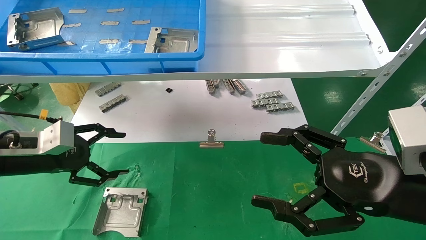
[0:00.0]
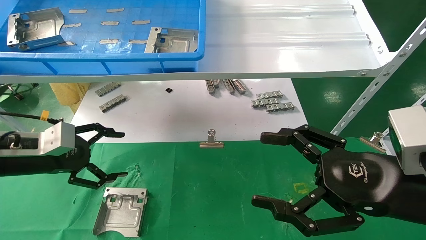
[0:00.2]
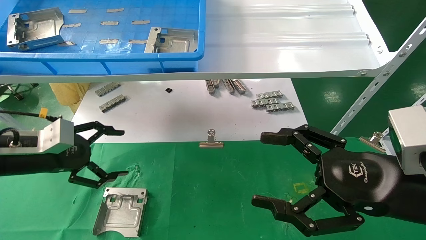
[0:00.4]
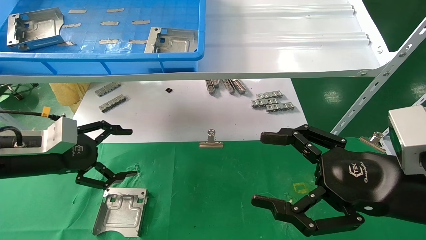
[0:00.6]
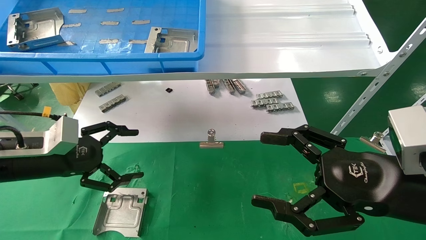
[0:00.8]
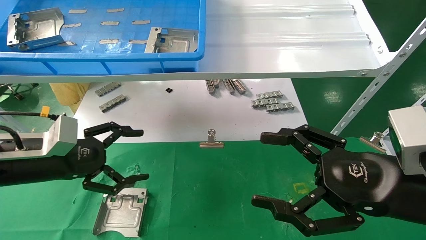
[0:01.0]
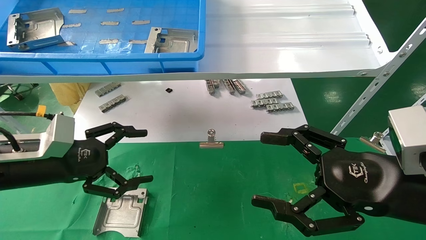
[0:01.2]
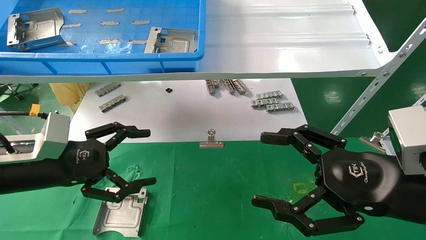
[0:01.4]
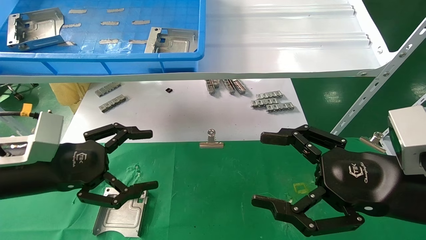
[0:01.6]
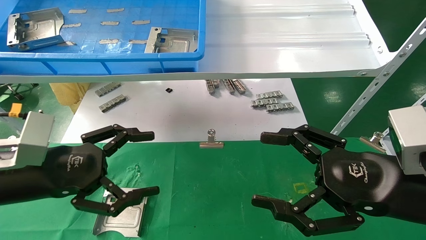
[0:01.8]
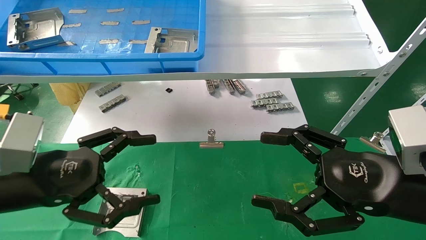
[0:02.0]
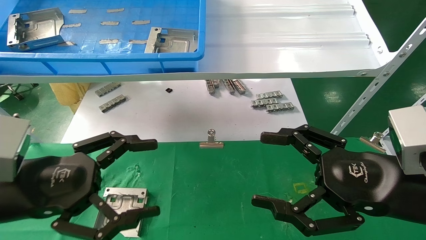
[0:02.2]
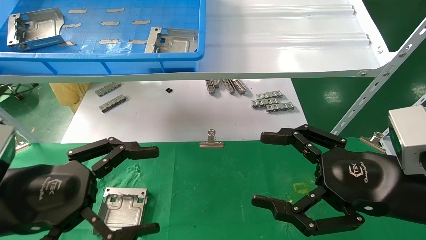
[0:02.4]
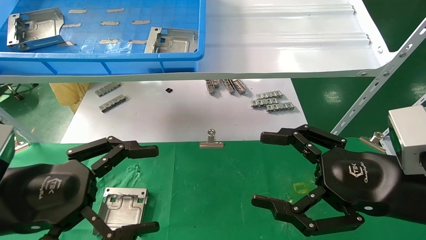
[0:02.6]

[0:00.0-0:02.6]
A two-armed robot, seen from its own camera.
Task of the whole recording: use the mechanical arm to pick up the parts and place them on the table.
0:00.0 to 0:01.2: The left gripper heads to the right, covering about 5 cm.
0:01.2 to 0:02.6: The left gripper travels backward by approximately 10 cm.

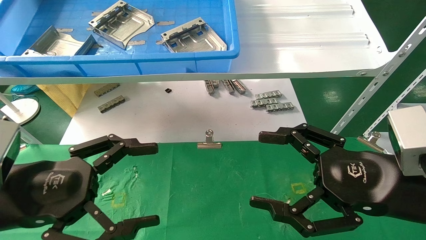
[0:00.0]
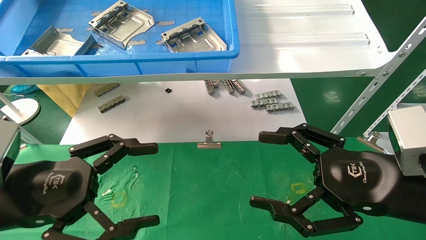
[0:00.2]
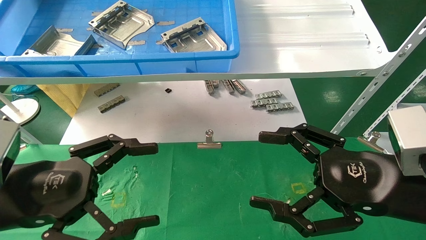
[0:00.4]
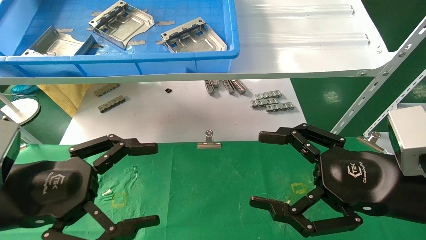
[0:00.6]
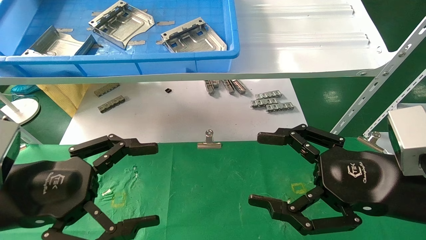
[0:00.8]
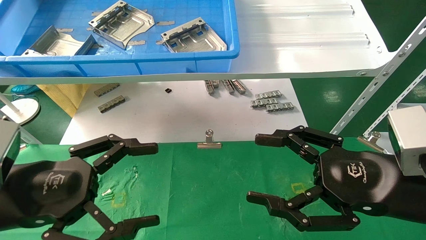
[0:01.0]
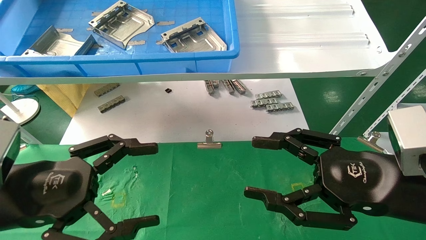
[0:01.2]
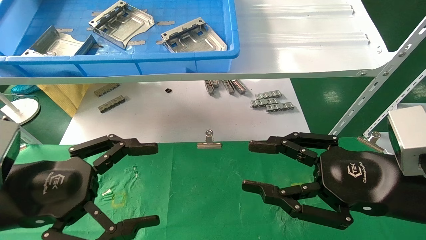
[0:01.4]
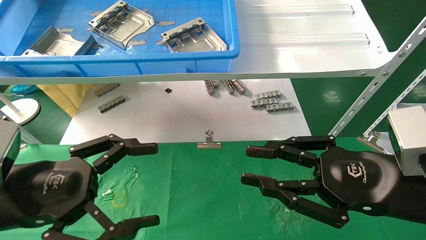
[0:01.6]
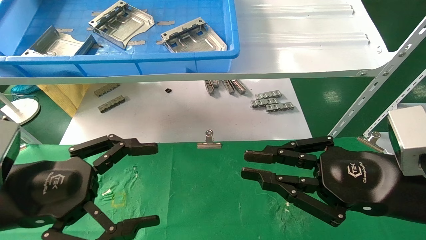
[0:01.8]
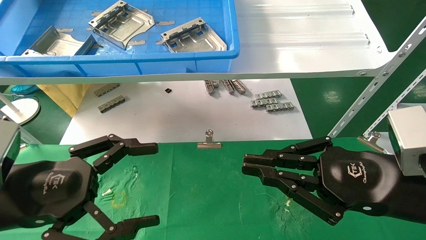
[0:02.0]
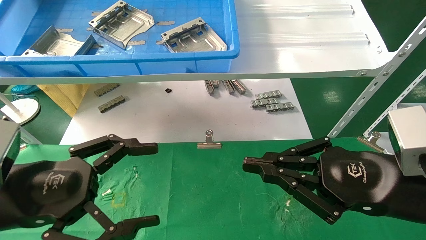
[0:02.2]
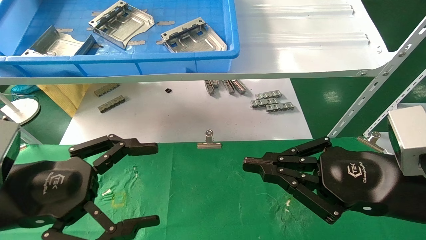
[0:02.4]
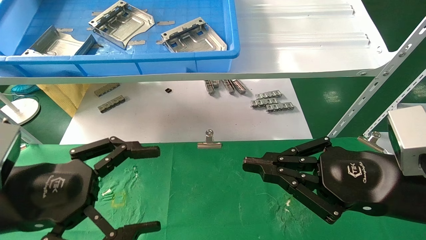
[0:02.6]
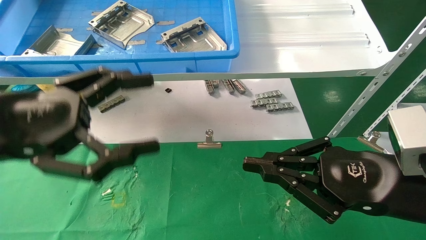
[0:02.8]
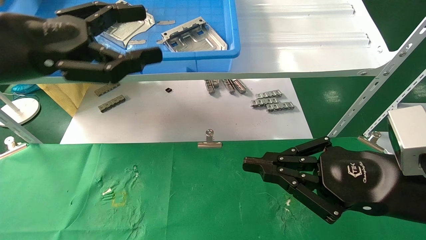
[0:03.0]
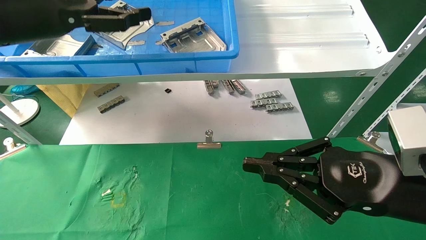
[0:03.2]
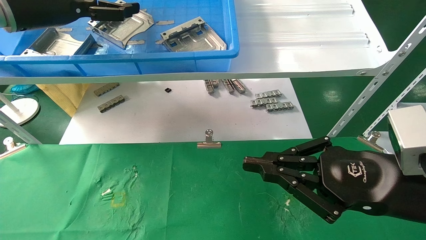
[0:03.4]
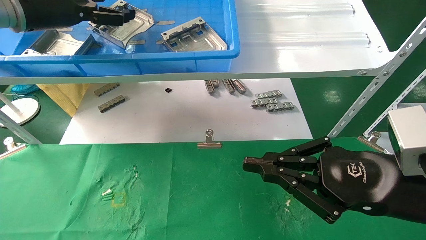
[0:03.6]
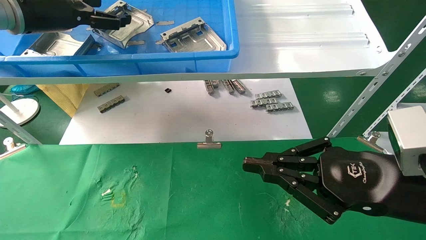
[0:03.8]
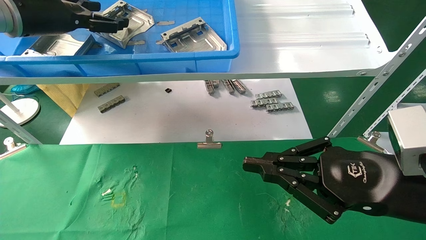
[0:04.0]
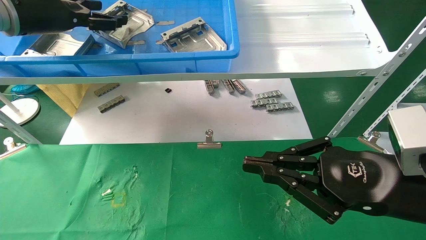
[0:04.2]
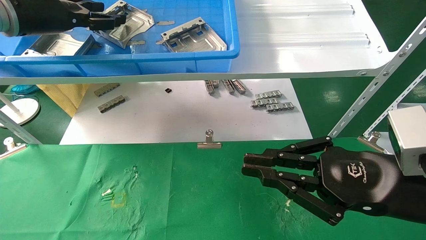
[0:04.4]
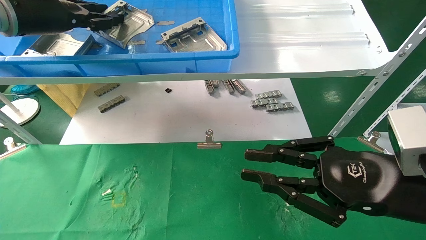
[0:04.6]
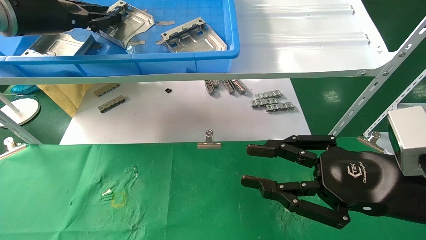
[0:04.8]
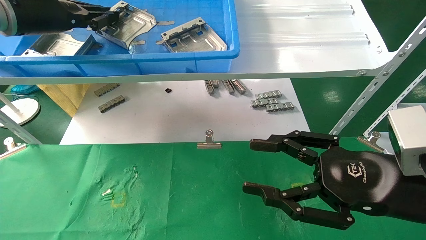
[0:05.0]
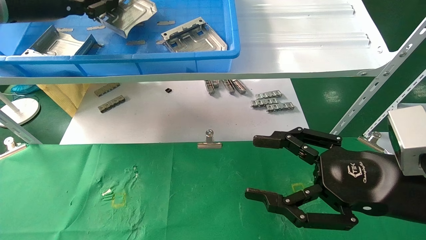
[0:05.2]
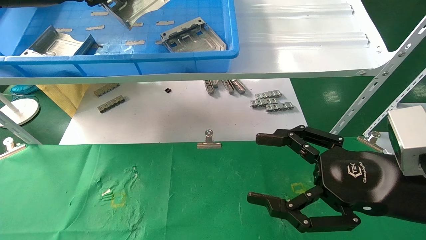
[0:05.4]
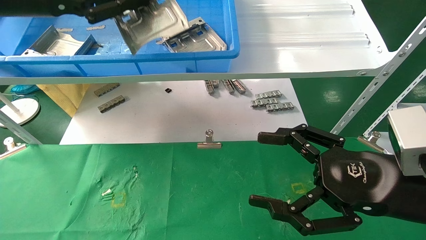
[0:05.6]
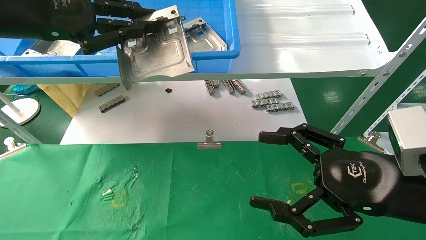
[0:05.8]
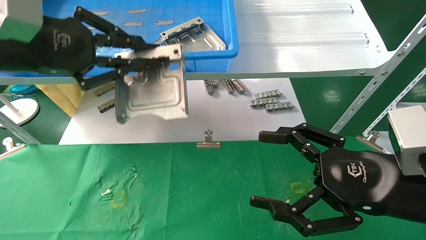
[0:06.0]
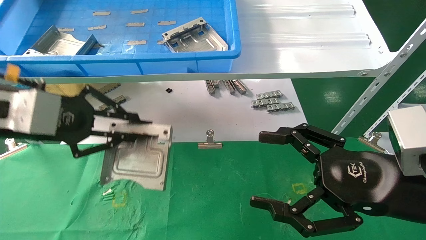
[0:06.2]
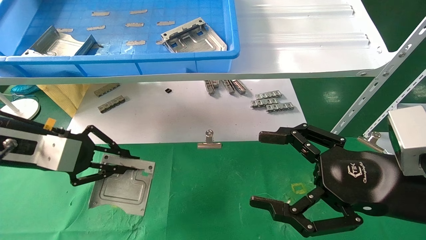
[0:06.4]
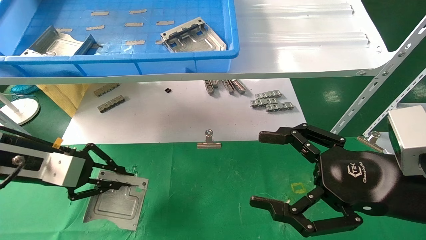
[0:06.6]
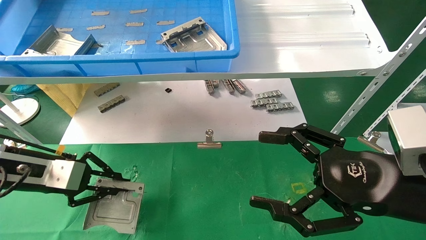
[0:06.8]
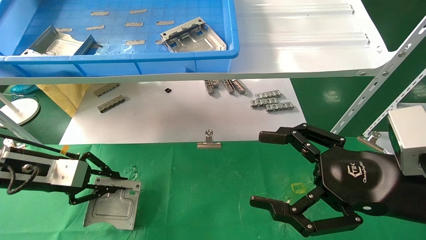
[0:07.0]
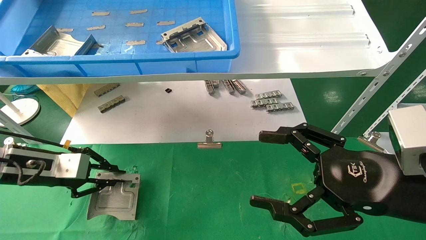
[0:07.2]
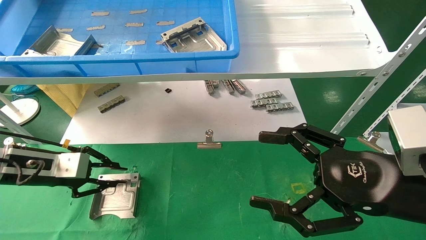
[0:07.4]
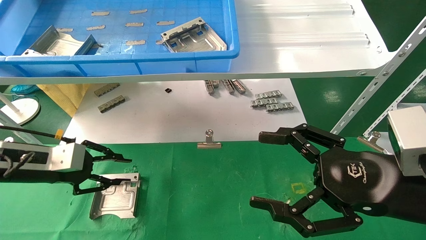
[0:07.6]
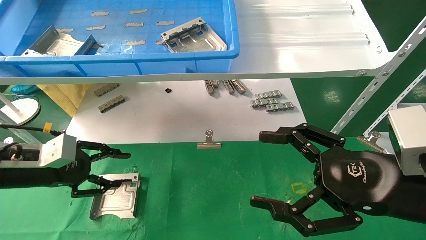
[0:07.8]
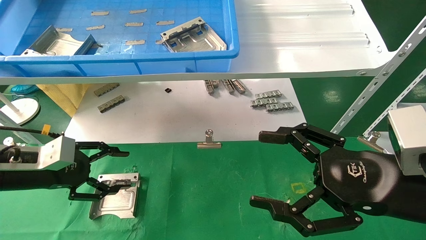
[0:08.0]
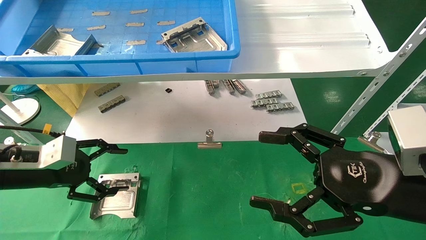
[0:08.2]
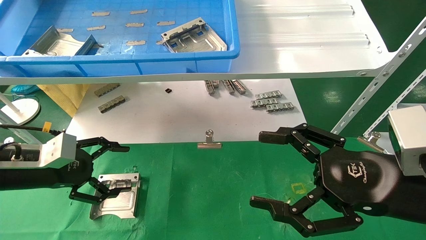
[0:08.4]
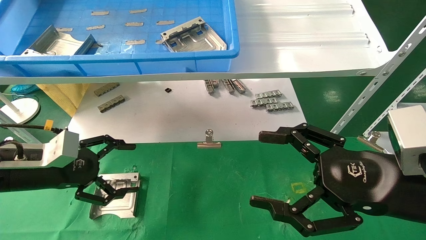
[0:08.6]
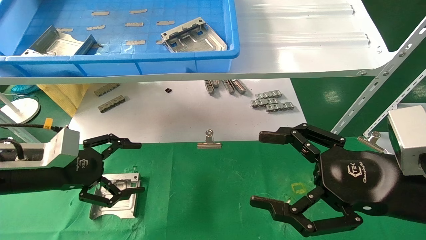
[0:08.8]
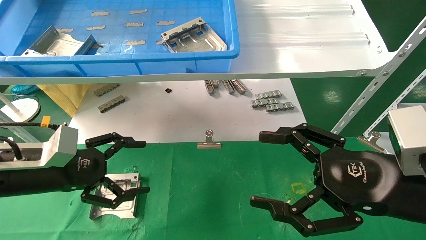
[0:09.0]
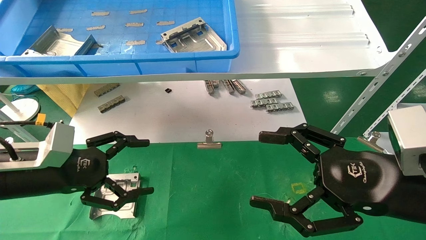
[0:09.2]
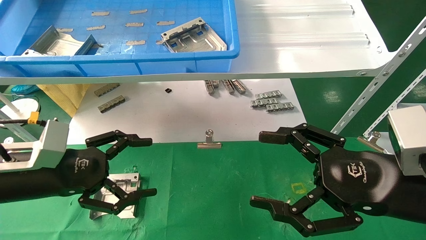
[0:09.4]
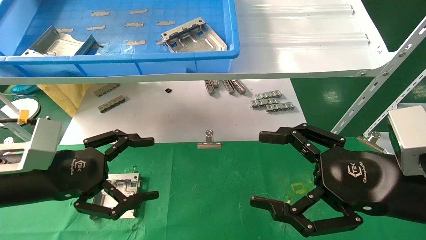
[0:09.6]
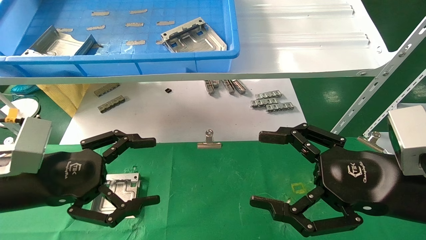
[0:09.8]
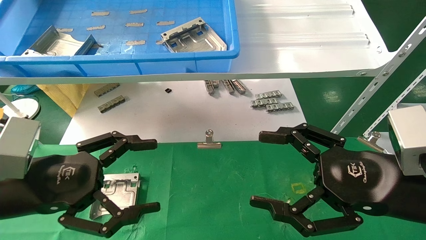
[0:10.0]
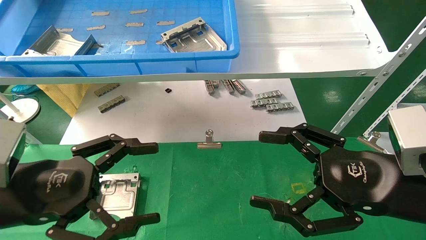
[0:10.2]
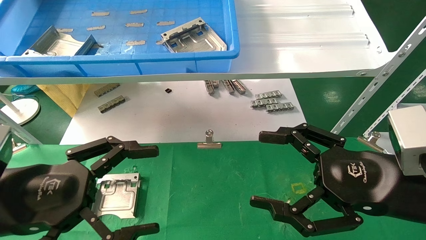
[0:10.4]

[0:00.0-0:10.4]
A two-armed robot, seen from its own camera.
Task of the whole recording: use the mechanical arm to pick up the parts and place them on the table.
Step, 0:02.2 to 0:05.2: Pick up the hard drive bracket from the feeding area.
Step, 0:05.4 to 0:07.6: Place the hard drive bracket into the box.
0:00.0 to 0:01.4: The right gripper closes.
0:01.4 to 0:03.0: The right gripper closes. Meanwhile the left gripper travels upward and forward by roughly 15 cm.
0:03.0 to 0:04.4: The left gripper goes roughly 15 cm forward and upward.
0:04.4 to 0:06.0: The right gripper opens its fingers; the left gripper goes roughly 15 cm backward and downward, and closes.
0:06.0 to 0:07.4: The left gripper goes approximately 20 cm downward.
0:07.4 to 0:09.0: The left gripper changes place by roughly 5 cm, and opens its fingers.
0:09.0 to 0:10.4: The left gripper is displaced backward by some 10 cm.

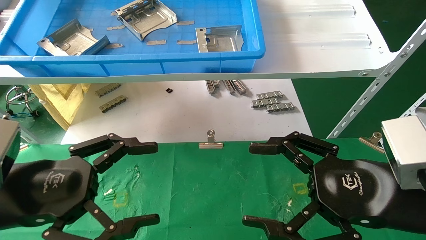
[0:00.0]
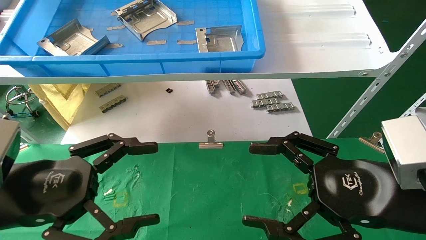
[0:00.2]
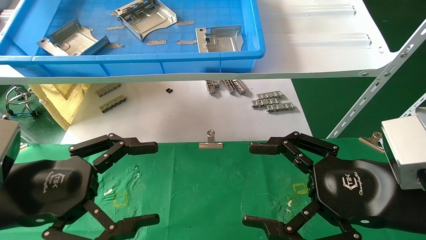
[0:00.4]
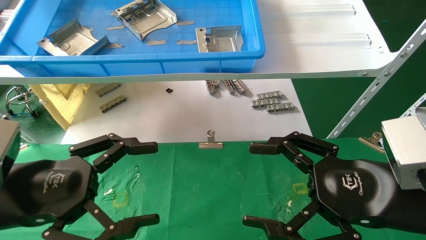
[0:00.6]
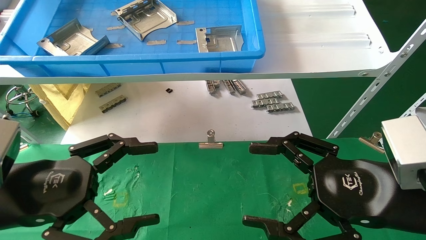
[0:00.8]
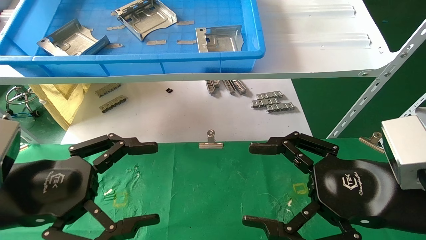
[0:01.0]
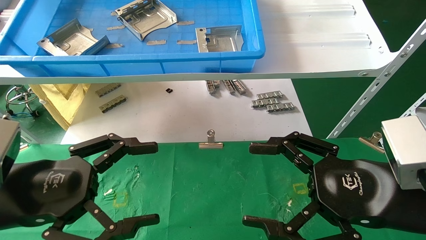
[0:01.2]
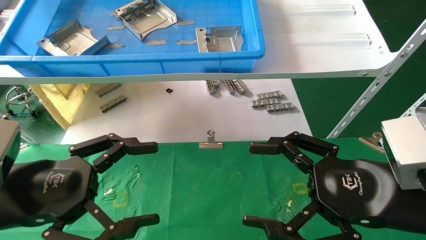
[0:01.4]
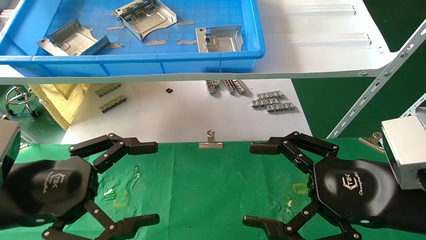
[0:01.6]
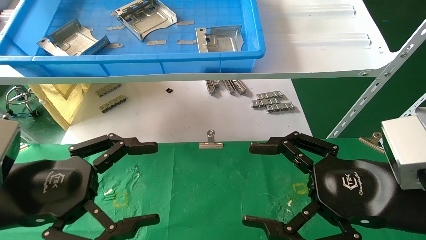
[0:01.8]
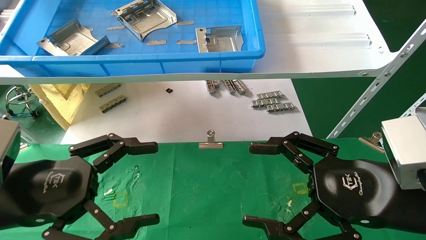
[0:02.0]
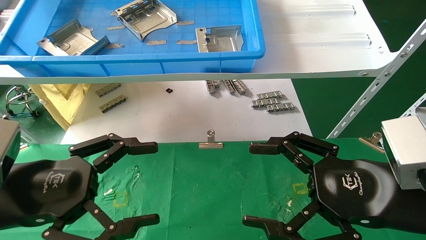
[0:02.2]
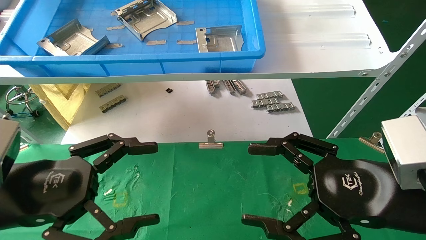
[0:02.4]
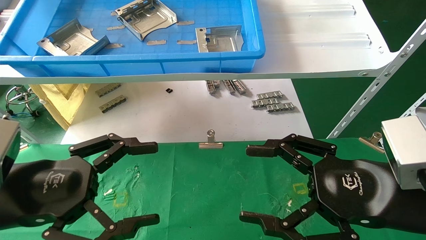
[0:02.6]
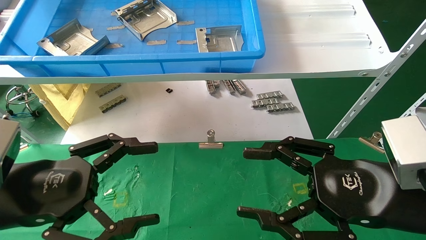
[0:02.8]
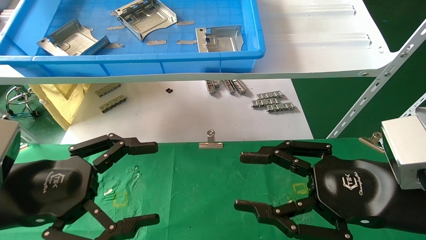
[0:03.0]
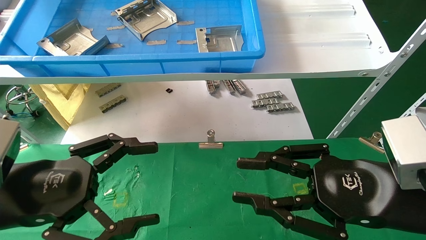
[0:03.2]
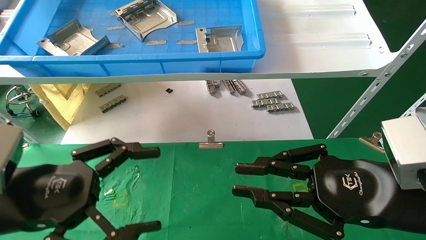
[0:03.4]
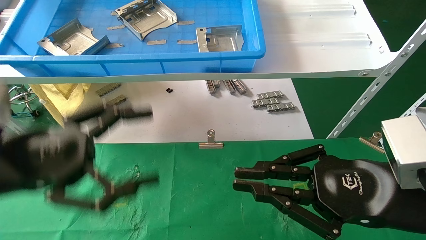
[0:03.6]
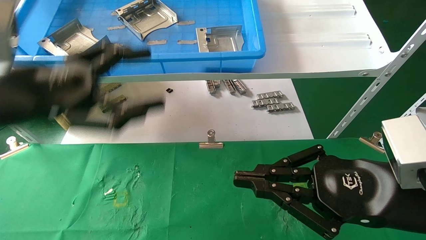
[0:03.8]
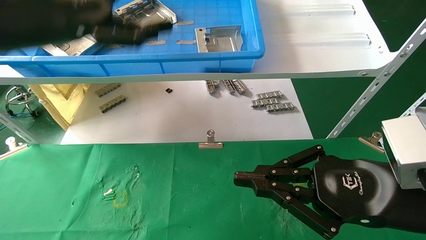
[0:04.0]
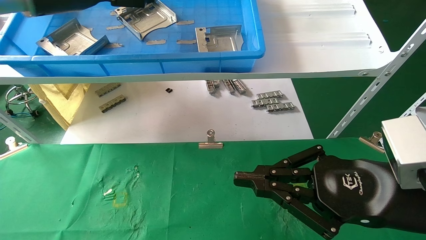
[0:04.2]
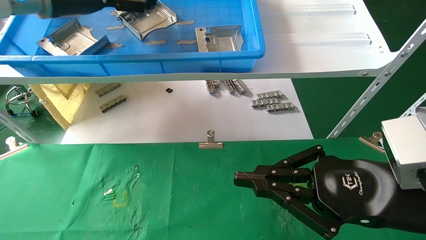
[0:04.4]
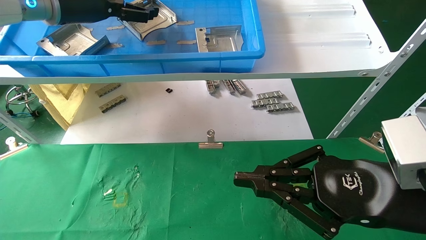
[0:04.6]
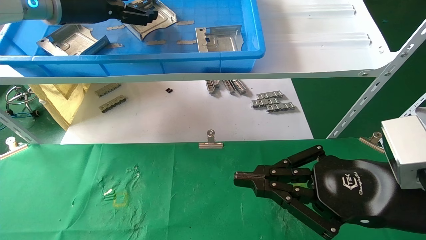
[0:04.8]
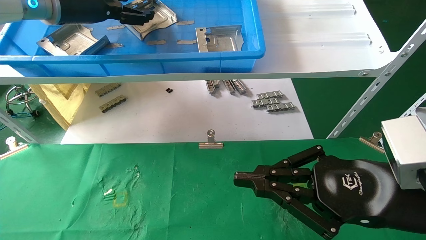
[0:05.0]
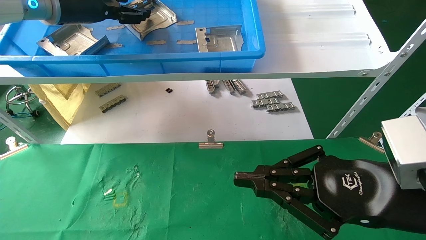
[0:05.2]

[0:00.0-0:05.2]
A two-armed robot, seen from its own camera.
Task of the whole recording: use the mechanical arm to pick up the parts and place them on the table.
0:00.0 to 0:01.8: Neither gripper changes place.
0:01.8 to 0:03.4: The right gripper closes.
0:03.4 to 0:05.2: The left gripper is displaced upward and forward by some 30 cm.
